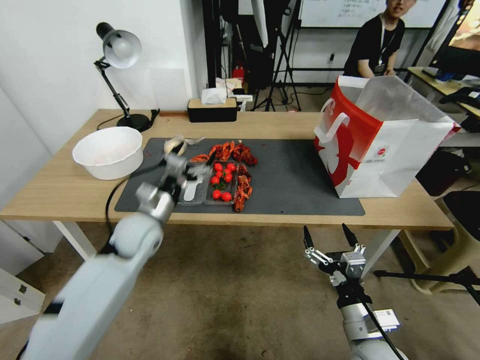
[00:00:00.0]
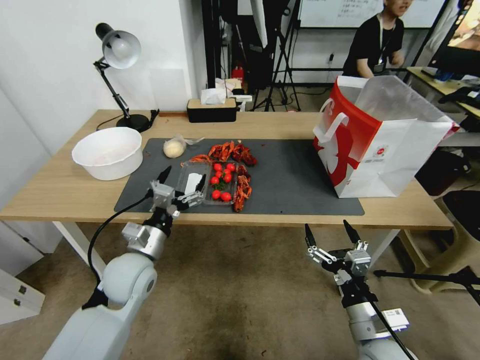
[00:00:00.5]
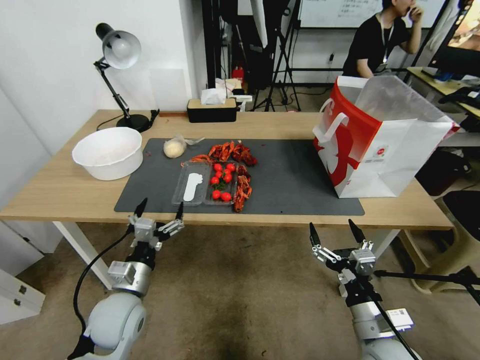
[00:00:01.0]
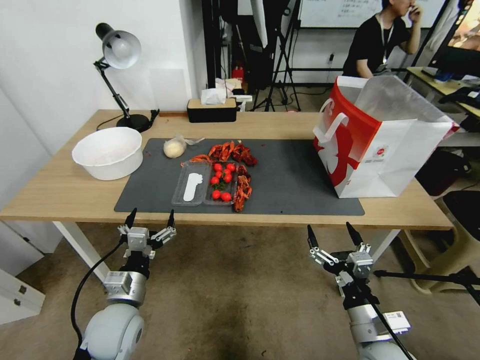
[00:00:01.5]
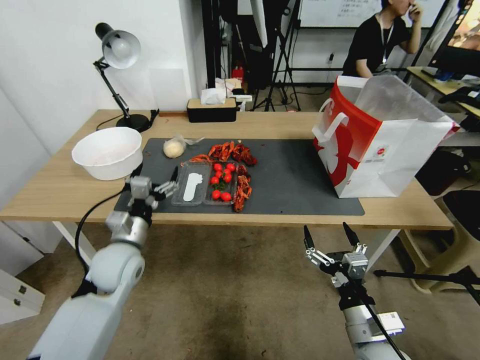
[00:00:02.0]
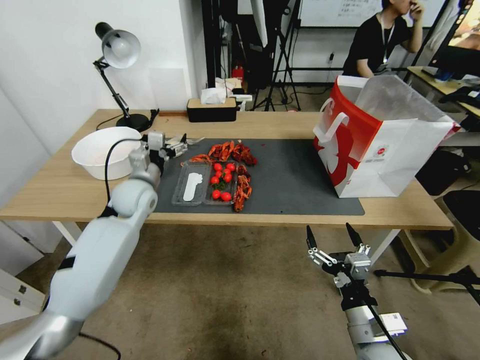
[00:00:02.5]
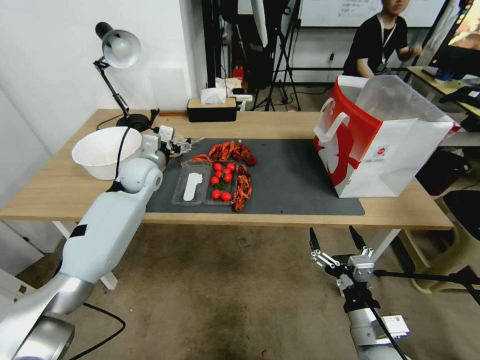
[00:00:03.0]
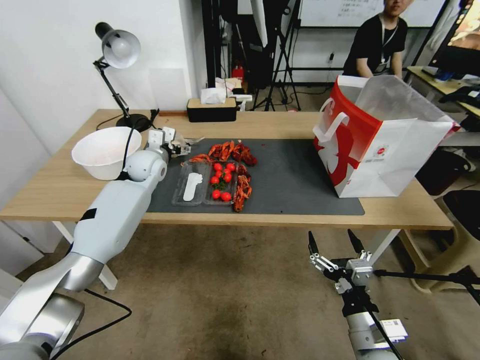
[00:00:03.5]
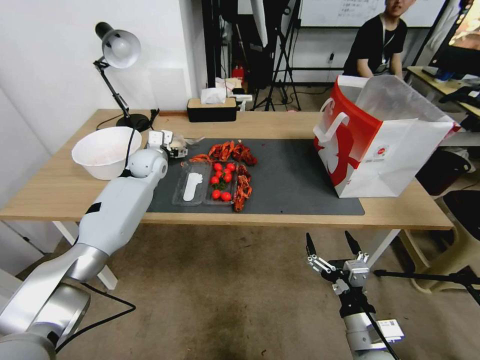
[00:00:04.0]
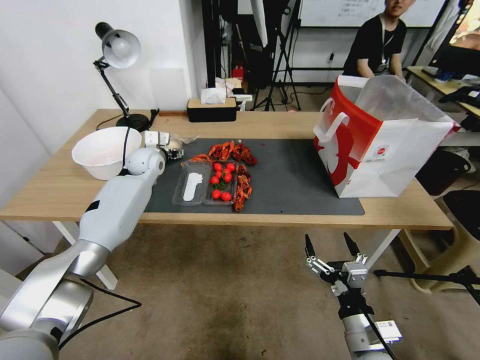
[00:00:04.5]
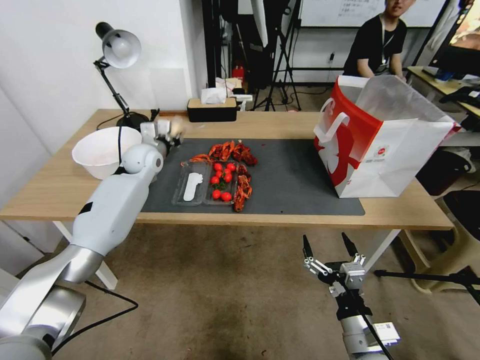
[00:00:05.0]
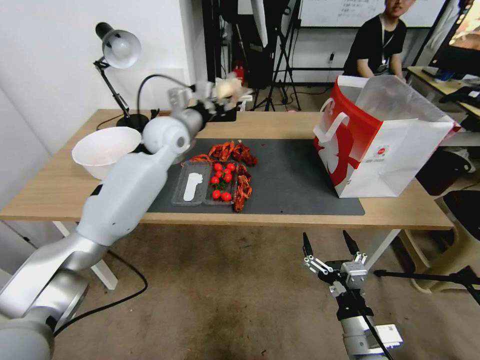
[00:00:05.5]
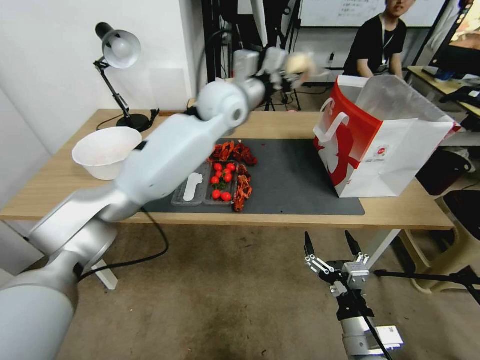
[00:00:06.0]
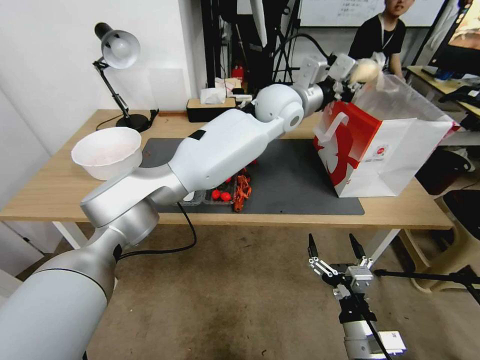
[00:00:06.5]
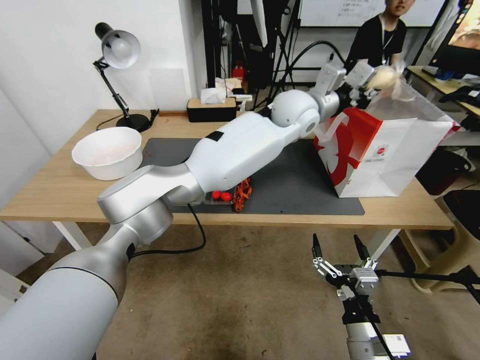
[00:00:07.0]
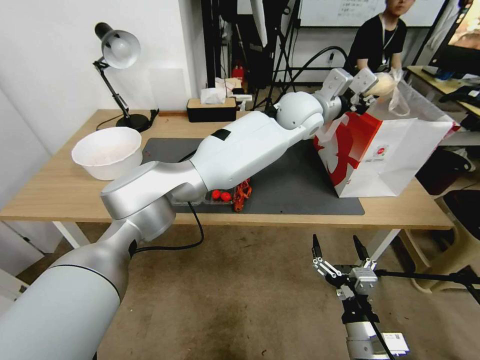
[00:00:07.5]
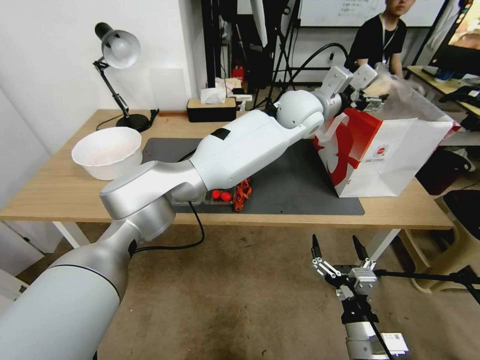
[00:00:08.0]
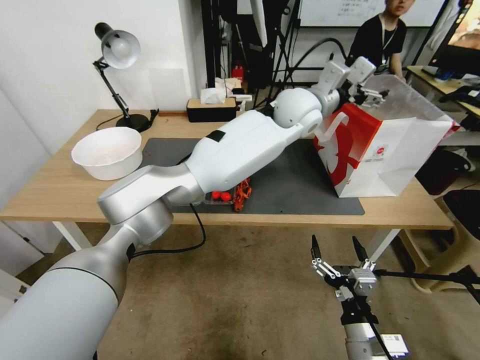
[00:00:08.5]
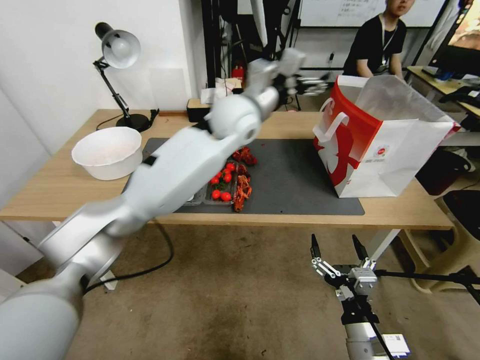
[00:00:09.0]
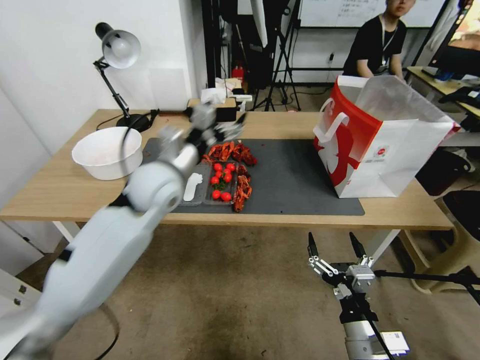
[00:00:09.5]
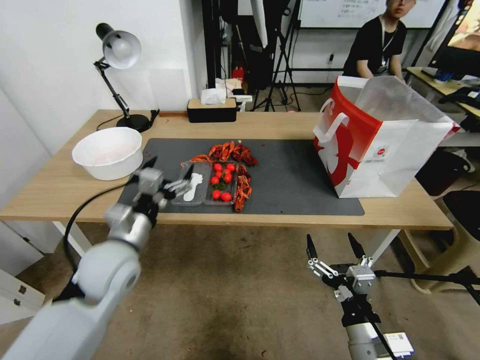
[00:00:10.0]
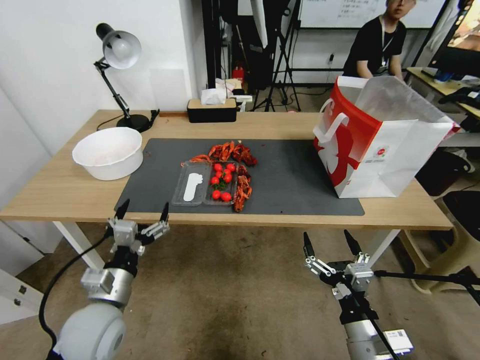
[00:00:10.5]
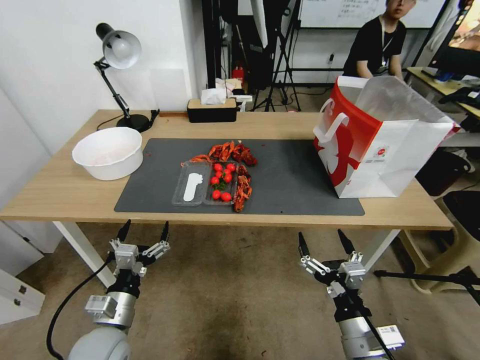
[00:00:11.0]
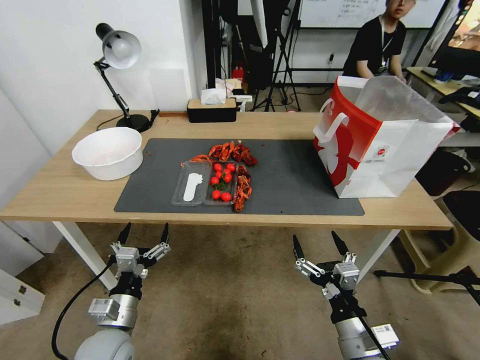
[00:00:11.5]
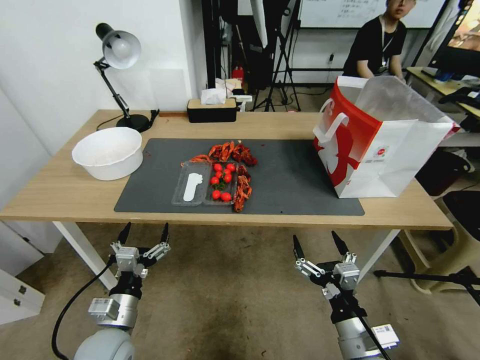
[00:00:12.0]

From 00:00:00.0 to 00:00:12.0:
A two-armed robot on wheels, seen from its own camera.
From 00:00:00.0 to 00:00:02.0: The left gripper is displaced backward by about 5 cm.
From 00:00:02.0 to 00:00:04.0: The left gripper is displaced forward by roughly 25 cm.
From 00:00:04.0 to 00:00:06.0: The left gripper travels to the right and upward by approximately 30 cm, and closes its fingers.
From 00:00:06.0 to 00:00:08.0: The left gripper travels to the right by some 20 cm, and opens.
From 00:00:08.0 to 00:00:10.0: The left gripper moves to the left, backward and downward, some 50 cm.
From 00:00:10.0 to 00:00:12.0: The left gripper moves downward and backward, approximately 20 cm.
